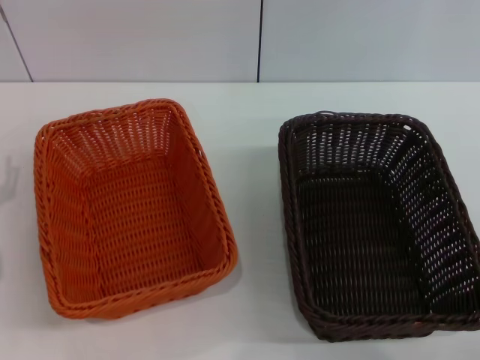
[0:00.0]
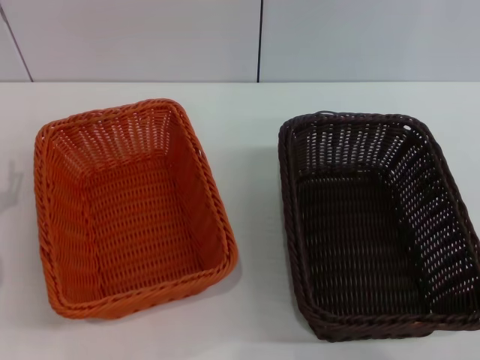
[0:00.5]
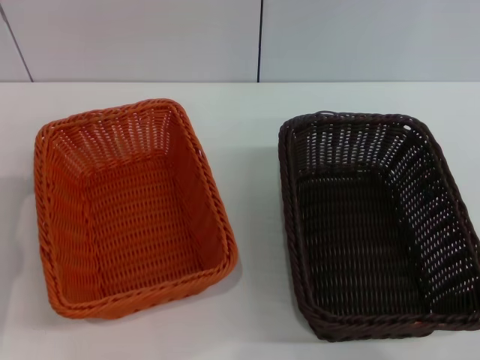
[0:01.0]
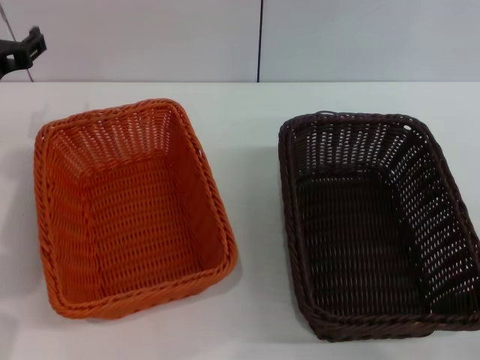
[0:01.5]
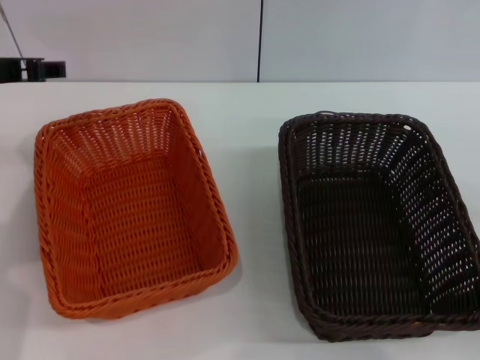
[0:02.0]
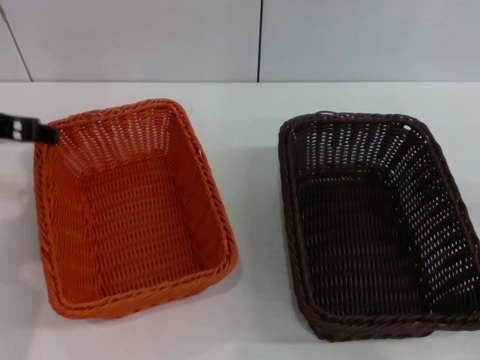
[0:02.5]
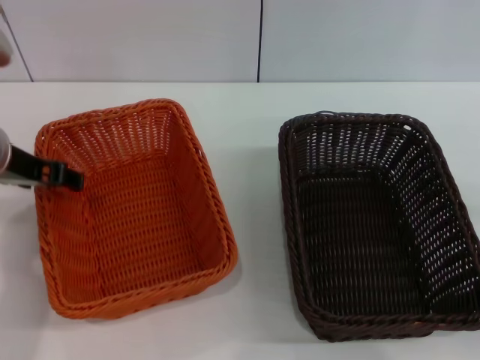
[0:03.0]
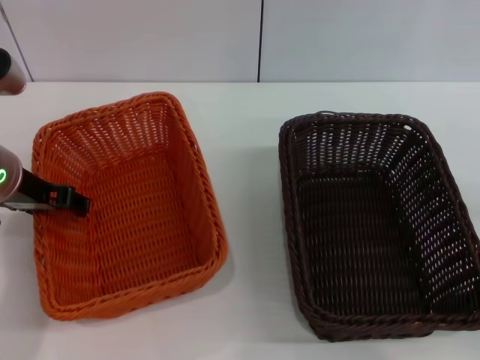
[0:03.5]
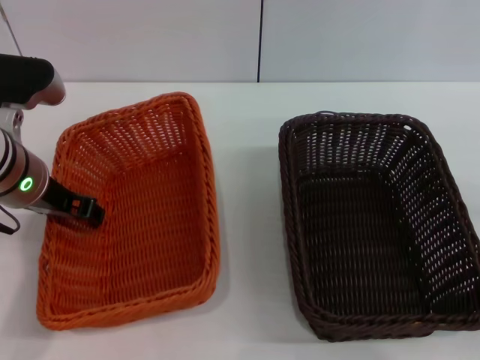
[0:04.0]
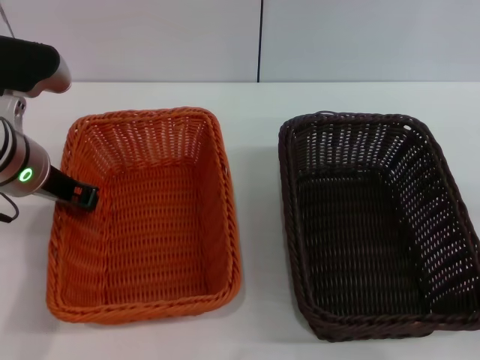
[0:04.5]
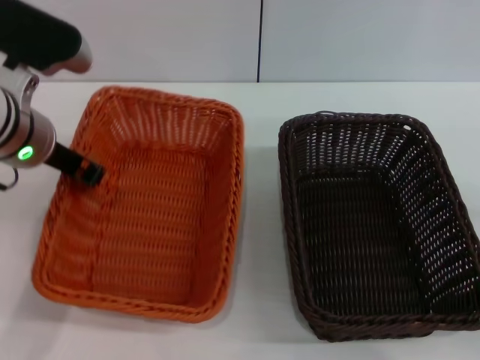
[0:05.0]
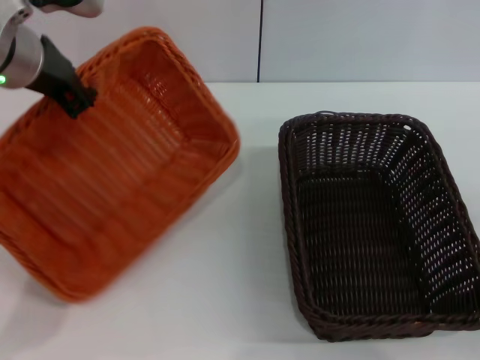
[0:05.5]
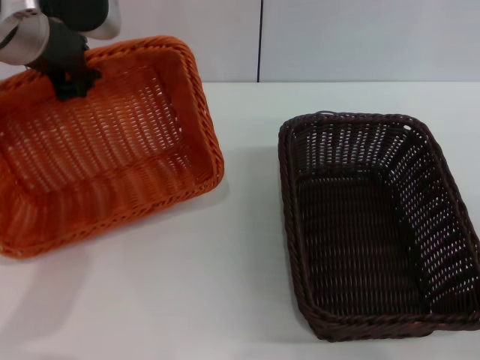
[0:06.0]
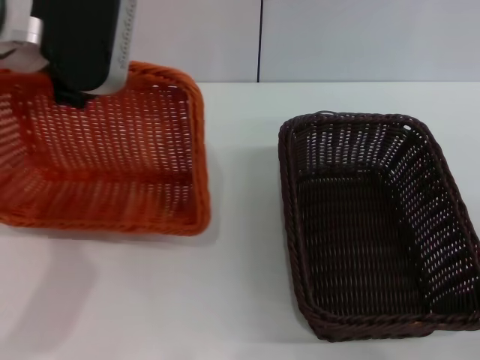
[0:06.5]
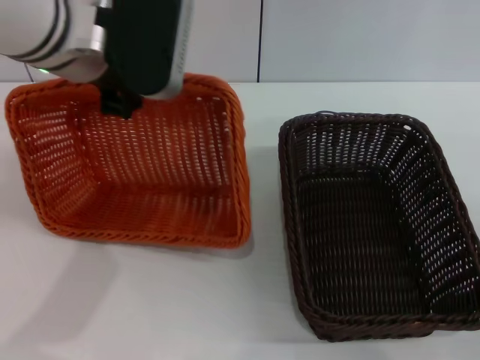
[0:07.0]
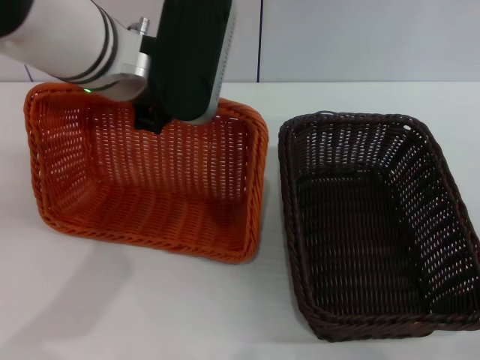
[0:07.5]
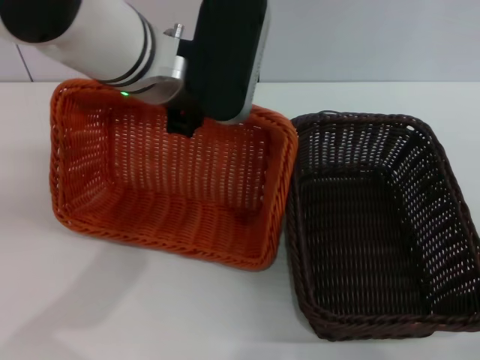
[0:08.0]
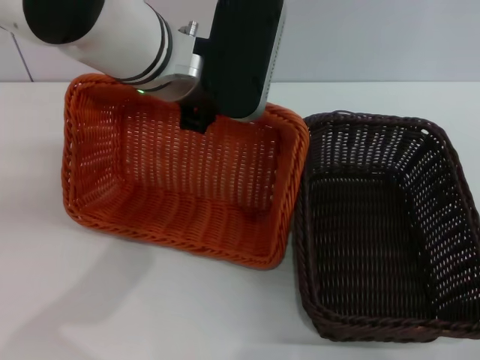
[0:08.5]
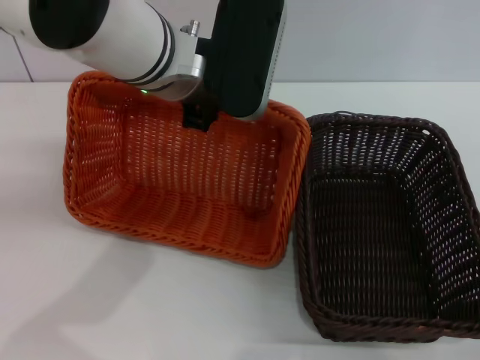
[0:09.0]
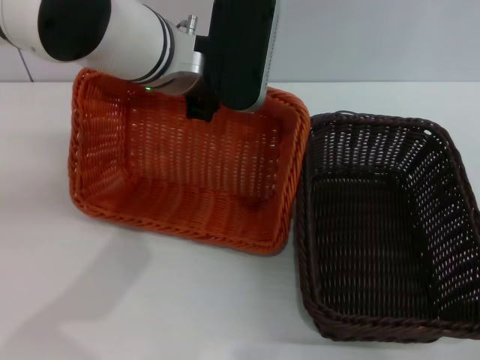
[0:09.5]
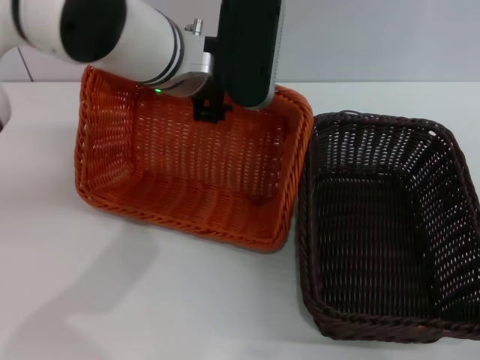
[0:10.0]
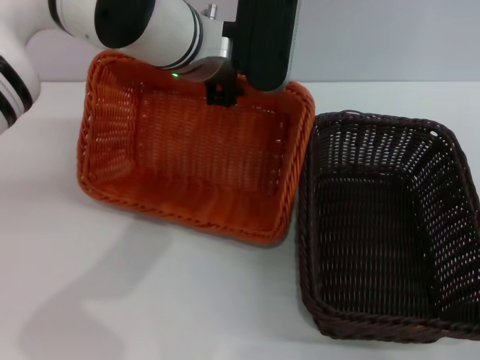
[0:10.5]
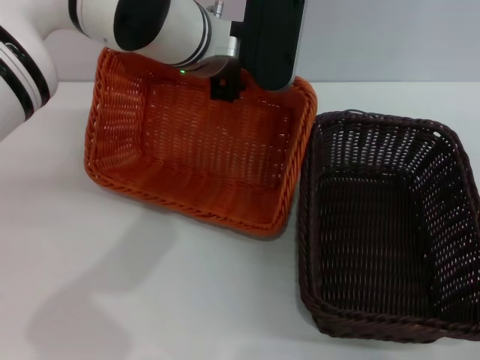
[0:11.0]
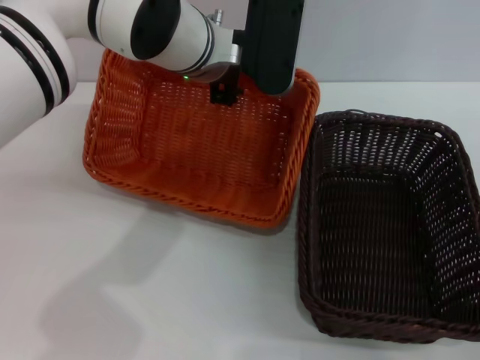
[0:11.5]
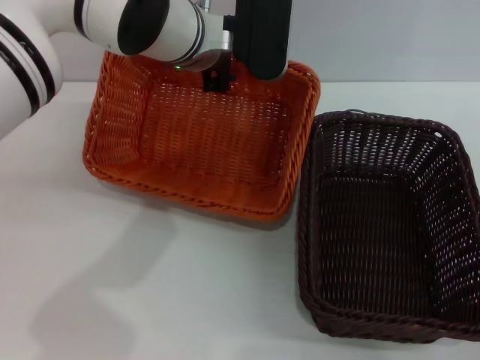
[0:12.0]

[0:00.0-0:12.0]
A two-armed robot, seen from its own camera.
Step, 0:00.0 to 0:04.5: Pick up the light basket with the left gripper.
0:00.0 to 0:02.0: The left gripper is displaced upward and forward by approximately 20 cm.
0:02.0 to 0:04.0: The left gripper is displaced downward by some 5 cm.
0:04.0 to 0:06.0: The left gripper travels upward by some 15 cm, and closes.
0:06.0 to 0:08.0: The left gripper travels to the right by some 10 cm.
0:10.0 to 0:12.0: The left gripper opens its fingers.

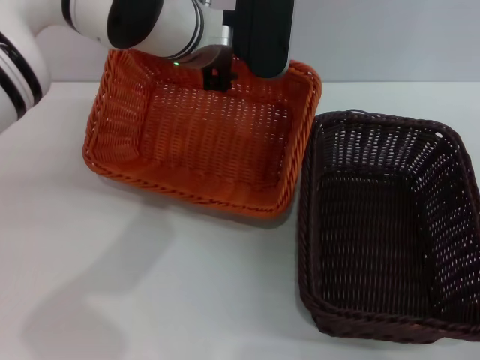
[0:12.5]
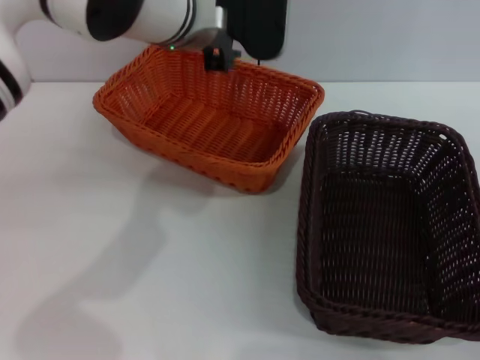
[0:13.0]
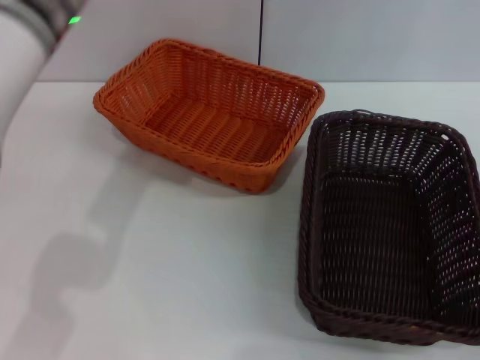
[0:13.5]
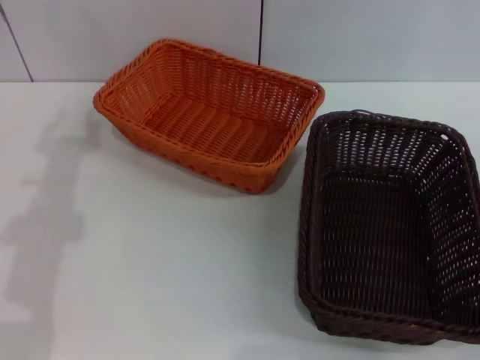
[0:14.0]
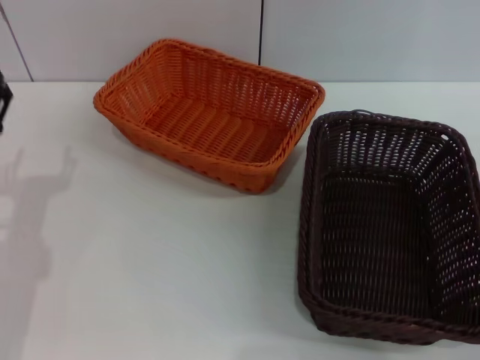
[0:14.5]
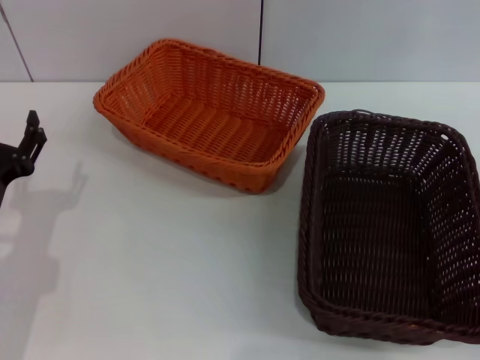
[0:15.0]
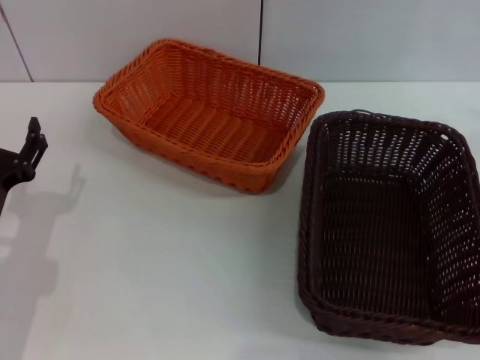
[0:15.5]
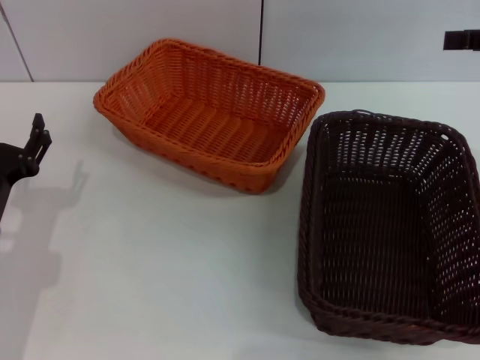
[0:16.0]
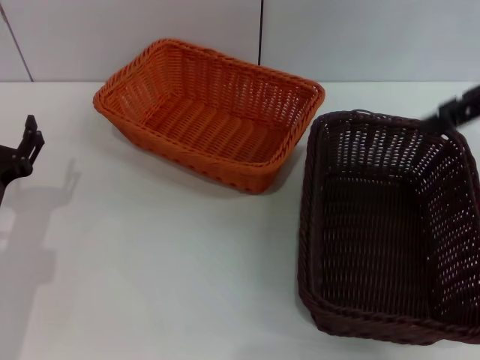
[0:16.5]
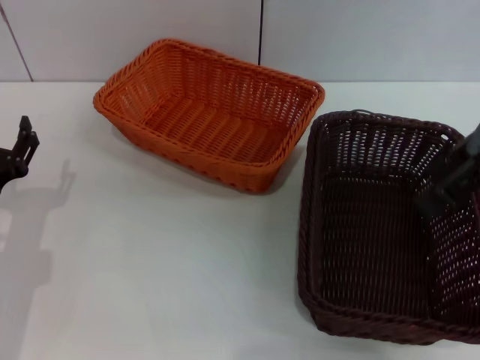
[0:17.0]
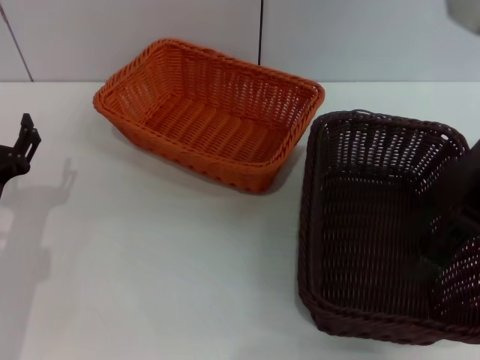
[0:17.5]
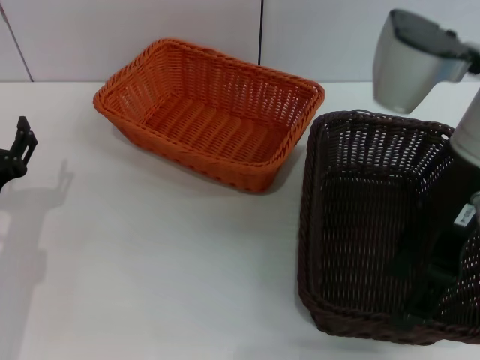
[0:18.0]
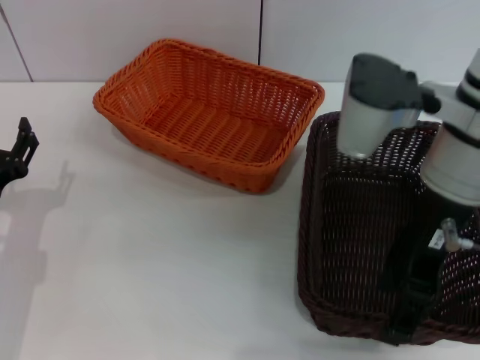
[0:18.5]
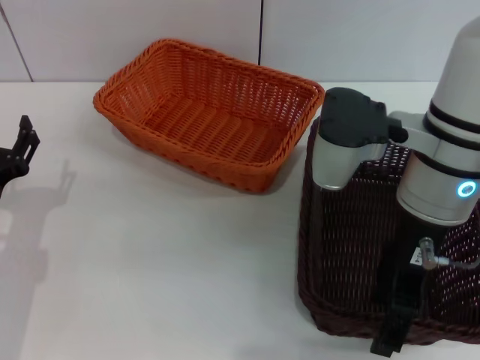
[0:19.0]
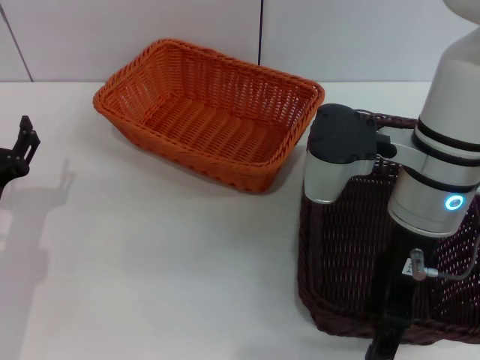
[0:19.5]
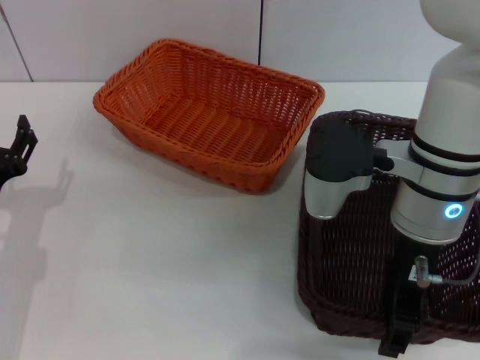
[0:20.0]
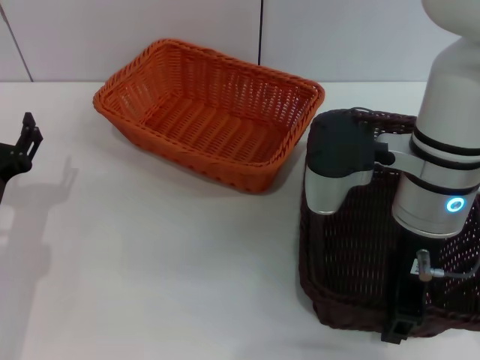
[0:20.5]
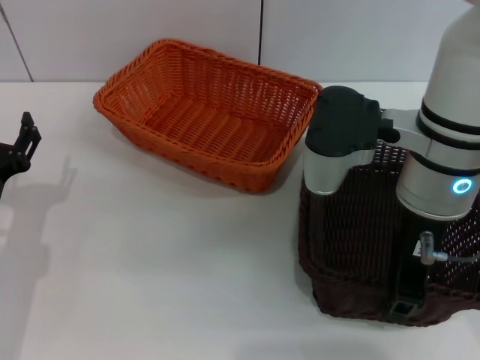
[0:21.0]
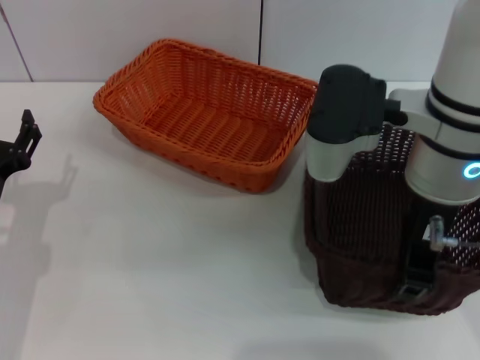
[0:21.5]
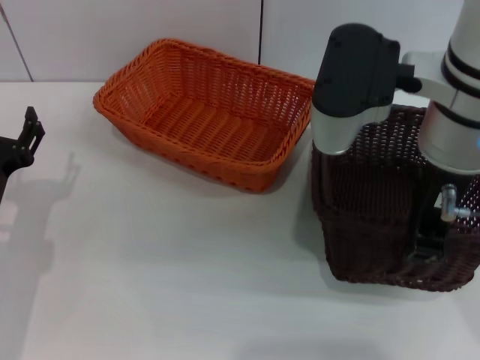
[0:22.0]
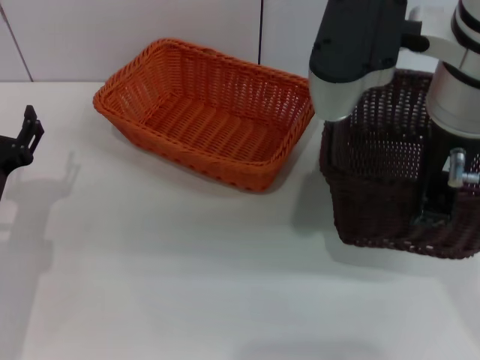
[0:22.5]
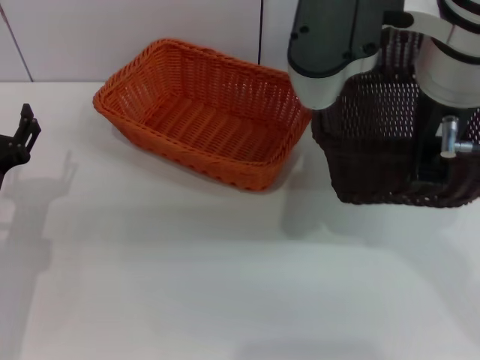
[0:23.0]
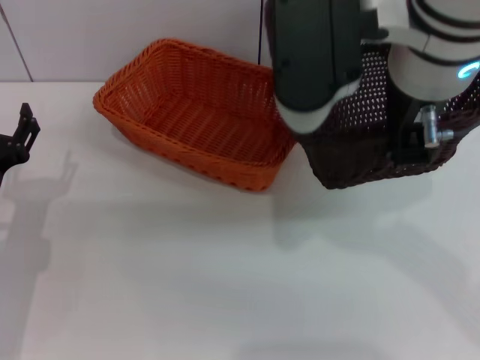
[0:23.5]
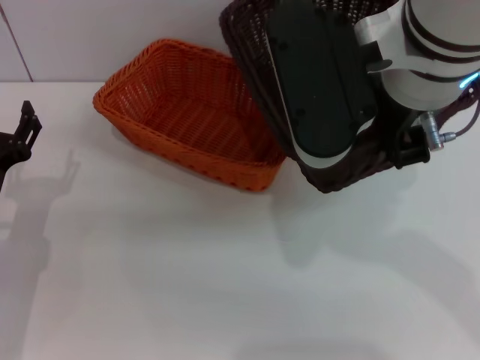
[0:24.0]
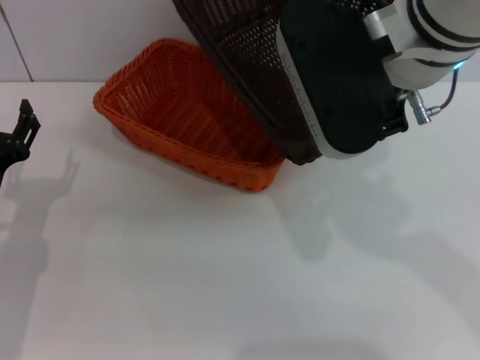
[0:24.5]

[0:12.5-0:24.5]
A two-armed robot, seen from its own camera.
Step, 0:13.0 to 0:21.5: Pick up the dark basket with the right gripper.
0:12.5 to 0:14.5: The left gripper moves to the left, backward and downward, some 30 cm, and opens up.
0:14.5 to 0:16.5: The right gripper moves upward, forward and to the left, approximately 30 cm.
0:16.5 to 0:18.5: The right gripper shifts about 15 cm to the left and downward.
0:18.5 to 0:20.5: The right gripper closes its fingers.
0:20.5 to 0:22.5: The right gripper travels upward by some 10 cm.

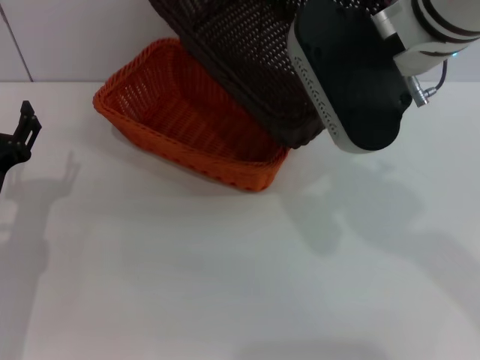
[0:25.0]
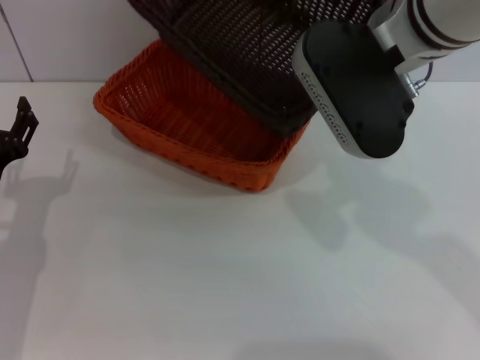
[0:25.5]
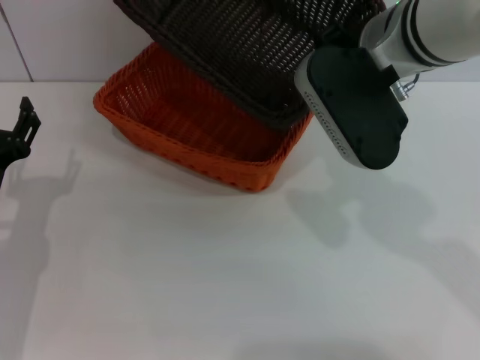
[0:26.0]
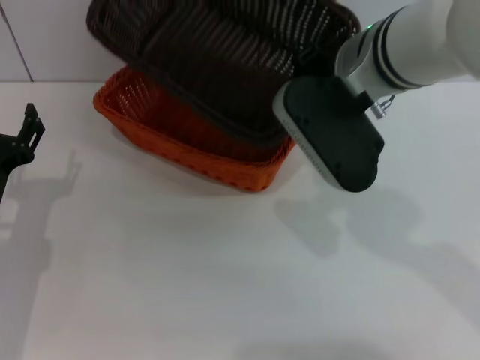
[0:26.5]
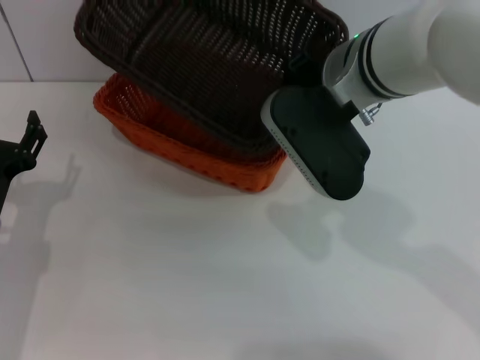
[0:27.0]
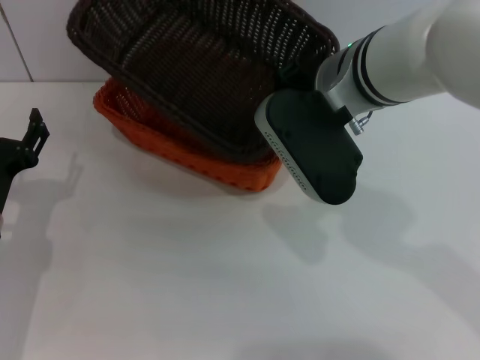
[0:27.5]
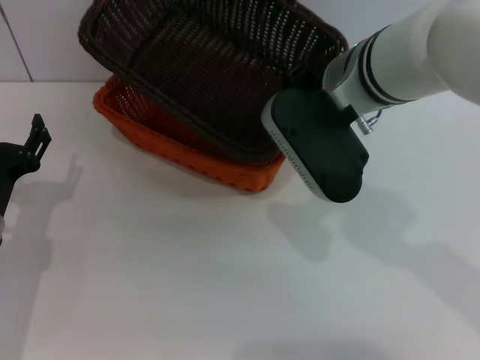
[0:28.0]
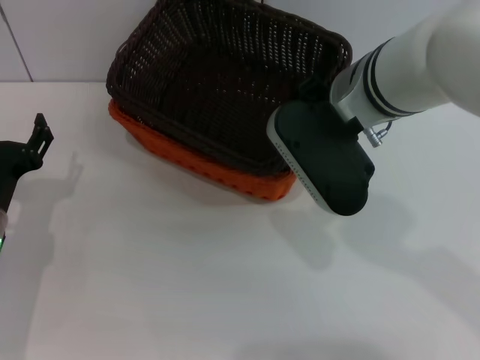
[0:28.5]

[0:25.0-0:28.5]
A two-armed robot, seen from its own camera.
Step, 0:25.0 to 0:28.5: Place the dark basket on the light basket with the right gripper.
0:25.0 to 0:27.0: The right gripper is displaced downward by approximately 5 cm.
0:27.0 to 0:28.5: The grippers stay close to where they were, moving slightly.
